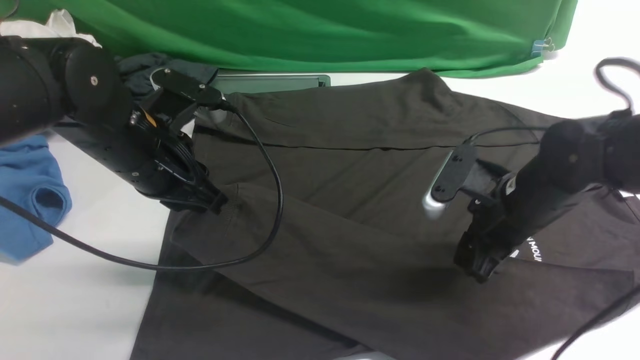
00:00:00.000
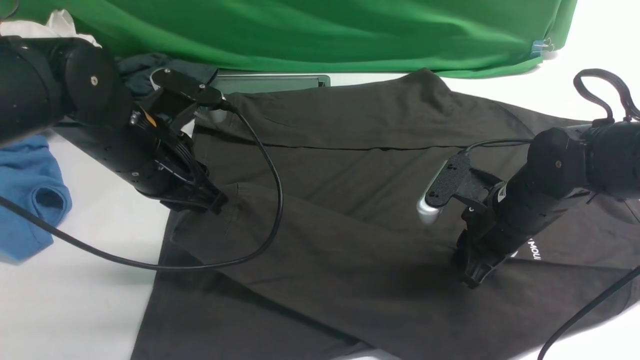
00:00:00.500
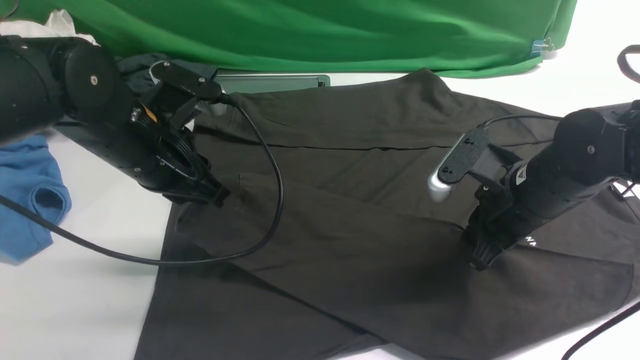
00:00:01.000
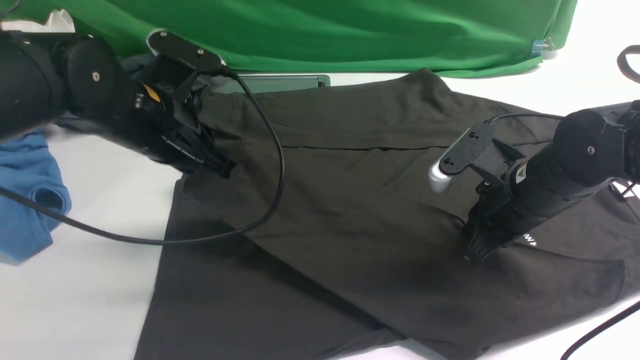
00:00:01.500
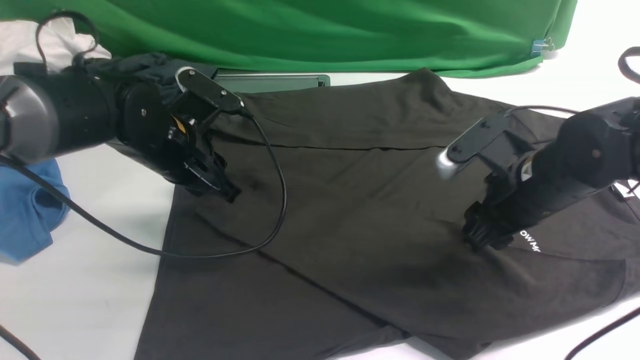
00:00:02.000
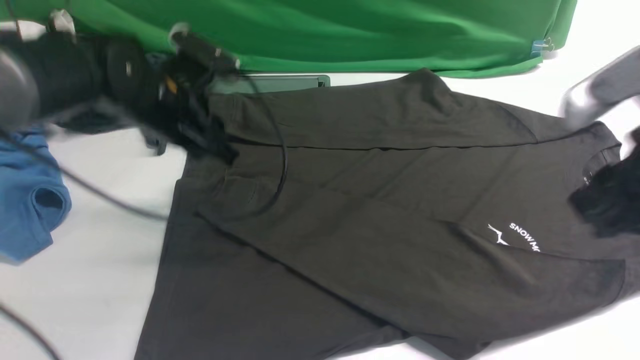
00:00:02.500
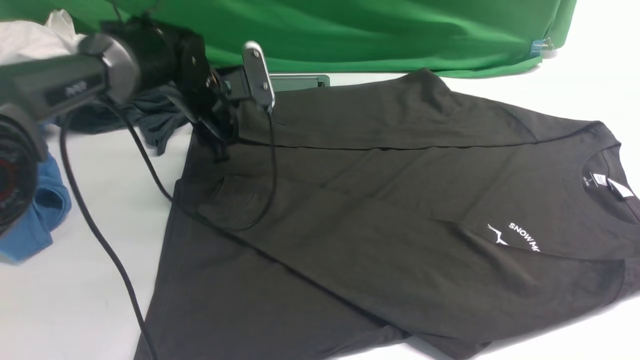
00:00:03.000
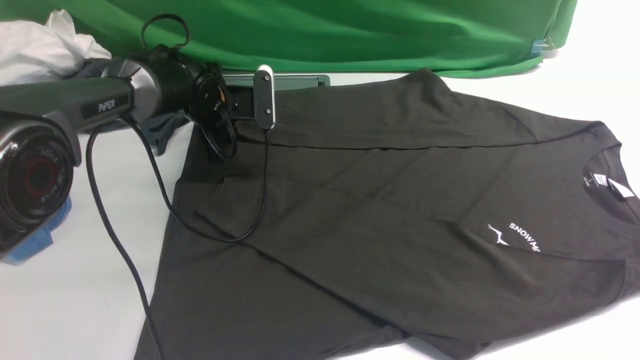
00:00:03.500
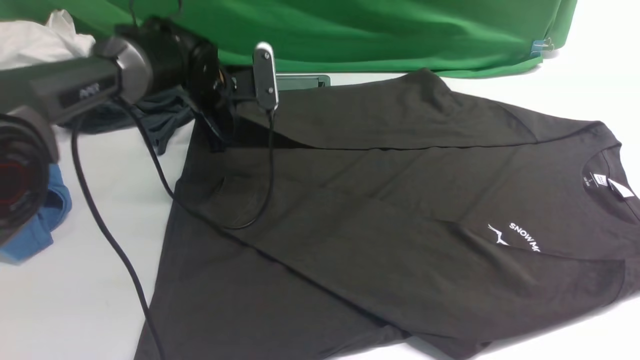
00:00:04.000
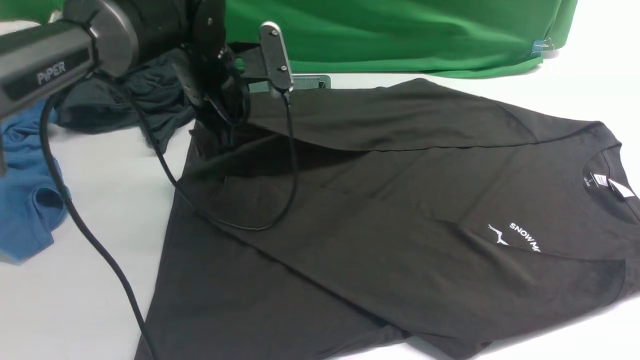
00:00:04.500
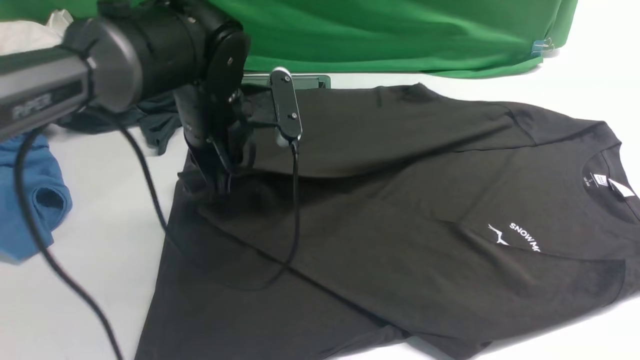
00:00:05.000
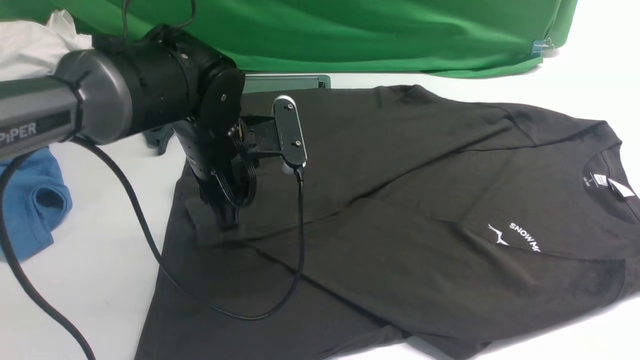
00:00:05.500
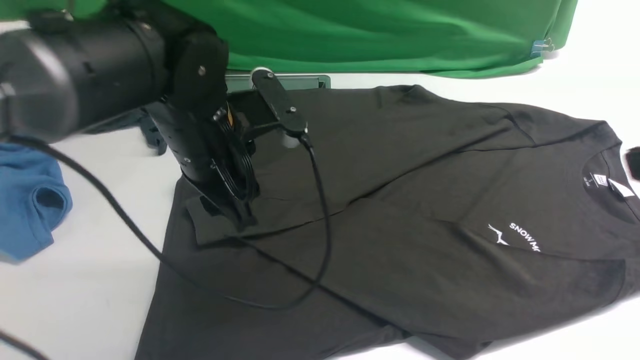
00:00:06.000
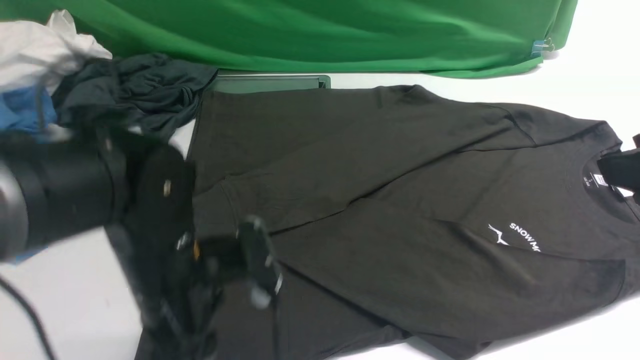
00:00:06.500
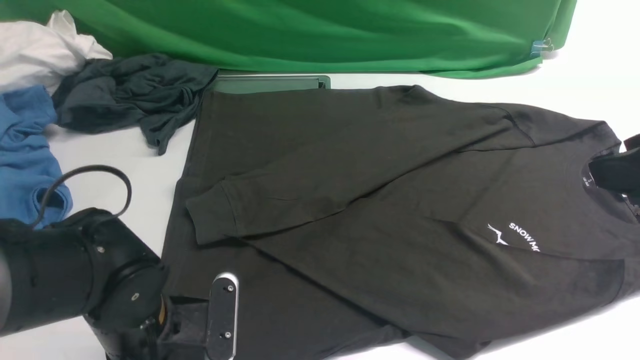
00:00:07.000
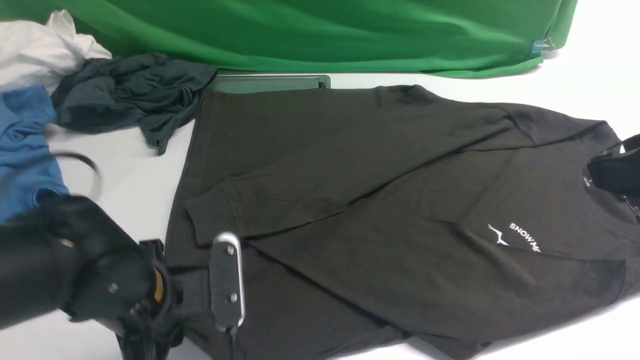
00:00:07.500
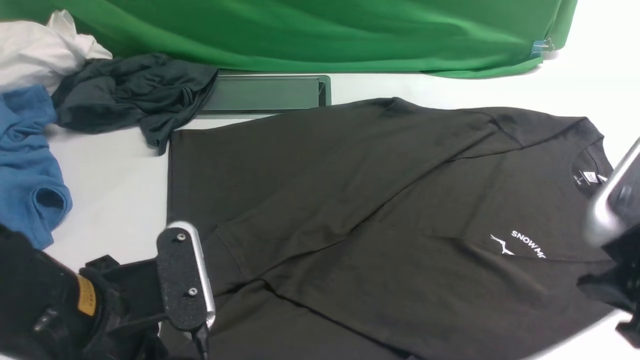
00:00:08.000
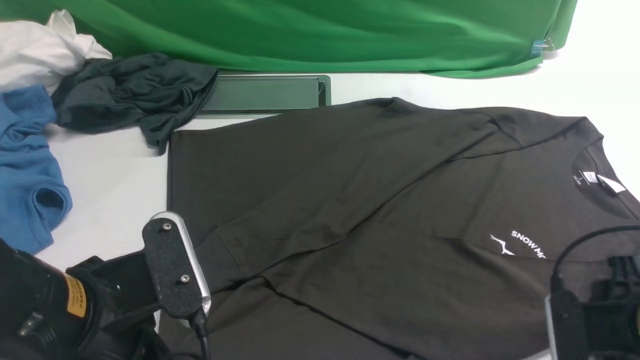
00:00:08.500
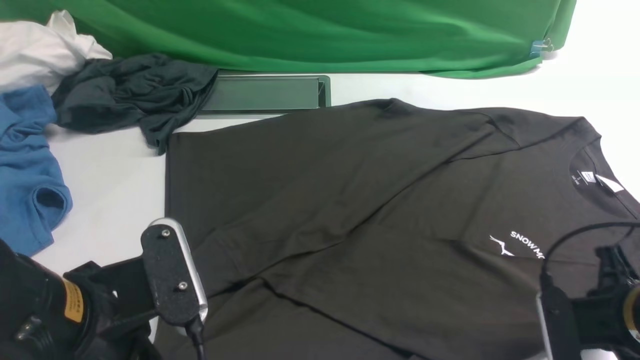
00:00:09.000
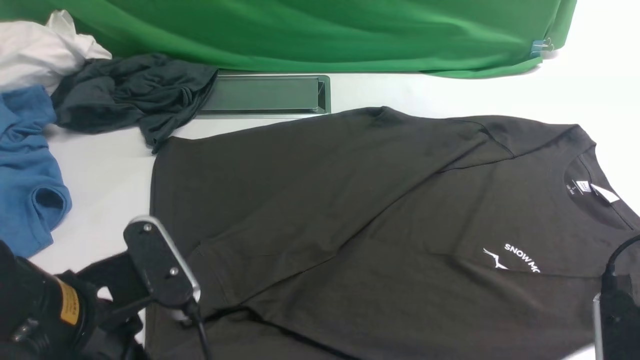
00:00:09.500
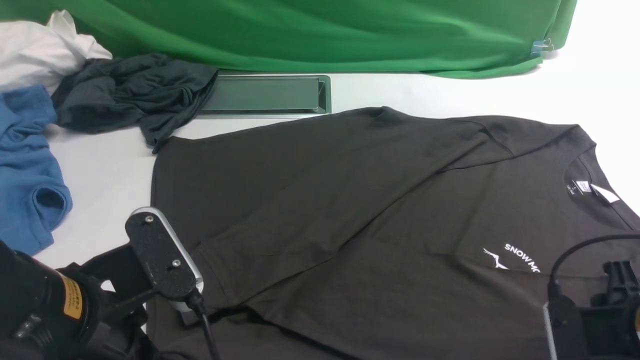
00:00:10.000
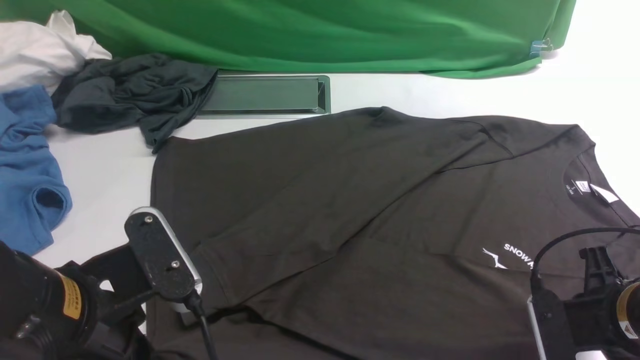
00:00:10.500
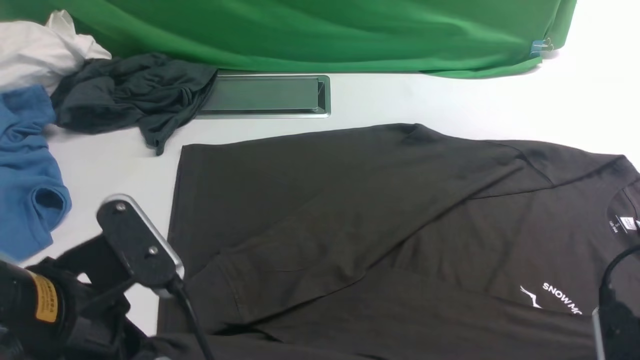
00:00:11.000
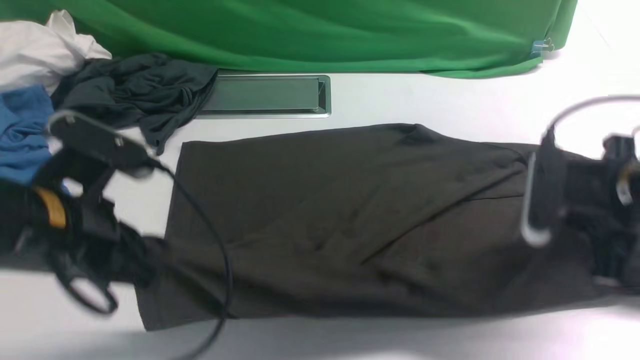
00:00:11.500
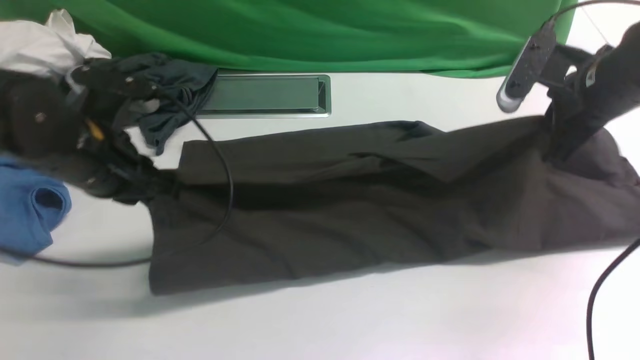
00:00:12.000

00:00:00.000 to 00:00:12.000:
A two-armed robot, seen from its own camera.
Step, 00:00:00.000 to 00:00:02.500: use the left arm to drag and place the cuff at the centered position on the left edge of the fabric.
Step, 00:00:03.000 to 00:00:04.000: use the left arm to clamp the cuff farthest from it.
Step, 00:00:04.500 to 00:00:05.500: use the left arm to drag and drop the cuff onto the cuff closest to the left arm.
Step, 00:00:06.000 to 00:00:11.000: use both arms simultaneously to clamp the lower edge of the clothing fabric.
00:00:00.000 to 00:00:02.000: The right gripper closes and opens again; the left gripper changes place by approximately 5 cm, and opens.
00:00:02.000 to 00:00:04.000: The right gripper travels upward and backward by some 25 cm. Meanwhile the left gripper shifts approximately 10 cm forward, and closes up.
00:00:04.000 to 00:00:06.000: The left gripper is displaced backward by approximately 15 cm, and opens.
00:00:06.000 to 00:00:08.000: The right gripper moves downward, roughly 10 cm, while the left gripper goes some 15 cm backward, and closes its fingers.
00:00:08.000 to 00:00:10.000: The right gripper travels downward by about 10 cm, and closes, then opens again.
00:00:10.000 to 00:00:12.000: The right gripper travels forward and upward by roughly 20 cm, and closes up, while the left gripper shifts about 15 cm forward.

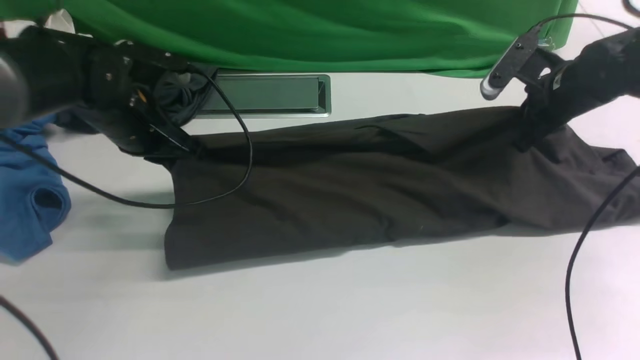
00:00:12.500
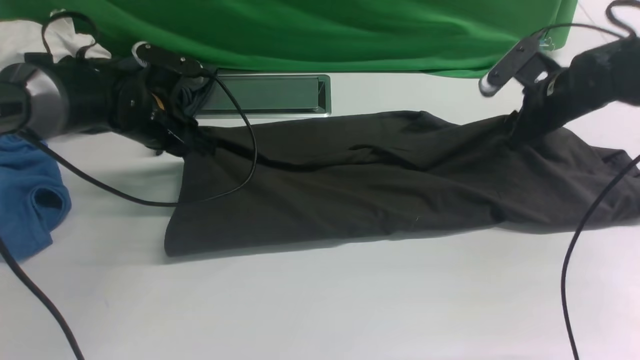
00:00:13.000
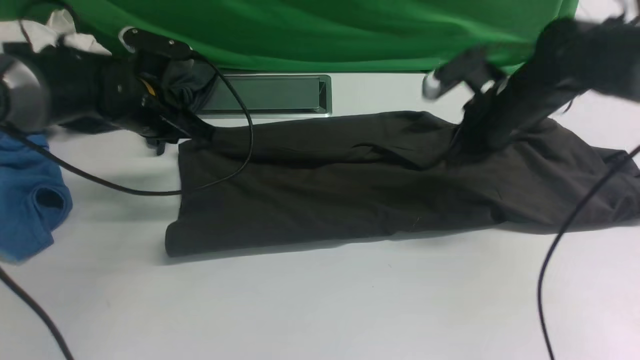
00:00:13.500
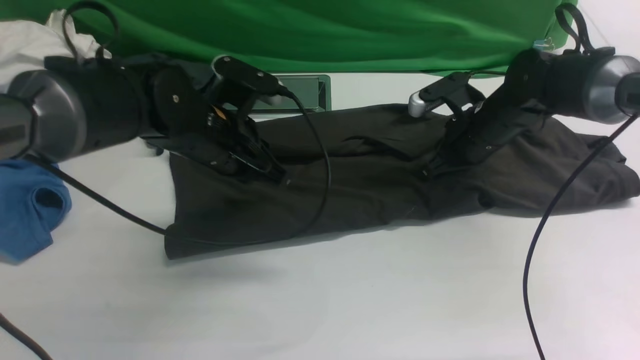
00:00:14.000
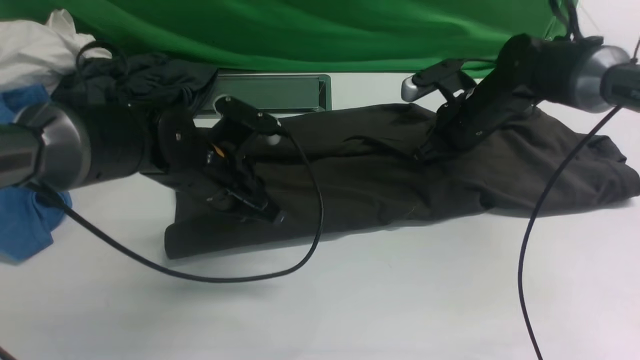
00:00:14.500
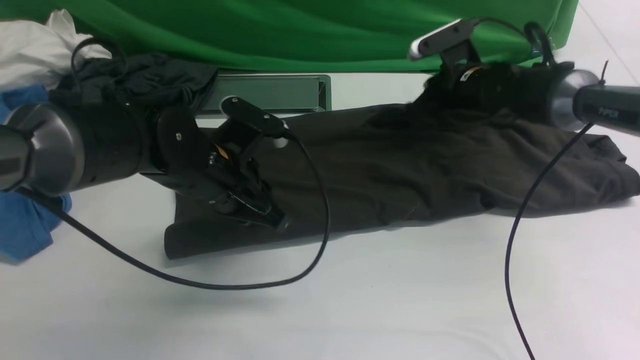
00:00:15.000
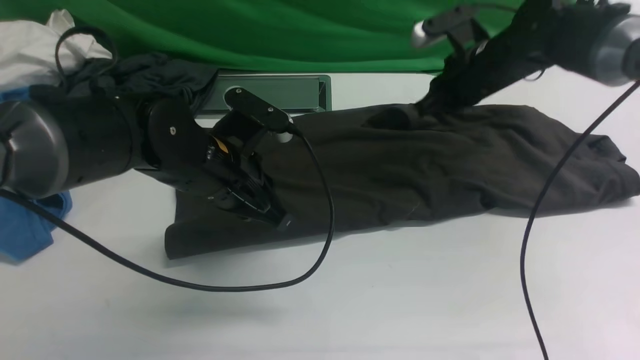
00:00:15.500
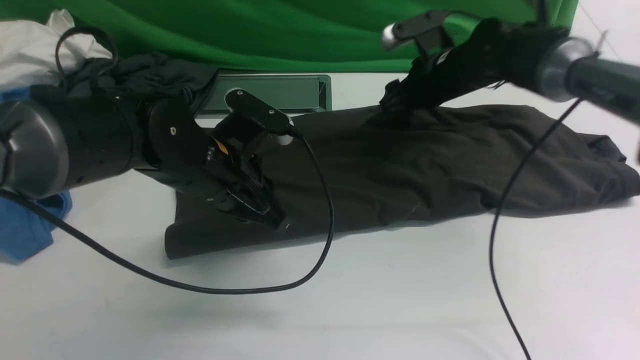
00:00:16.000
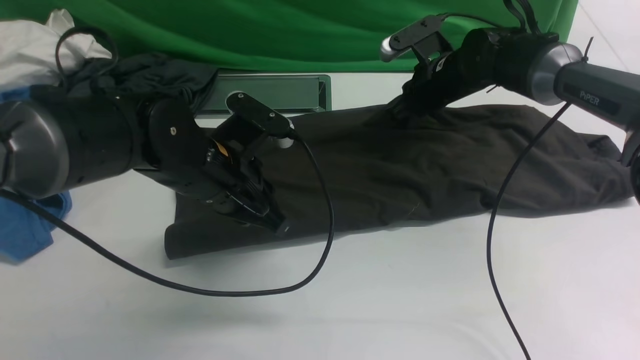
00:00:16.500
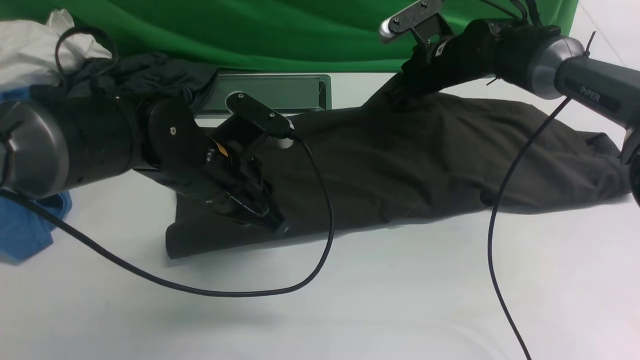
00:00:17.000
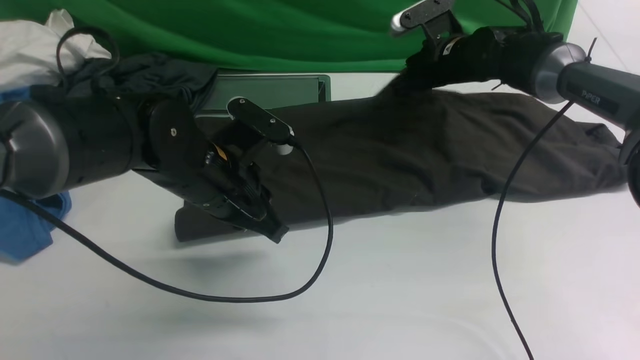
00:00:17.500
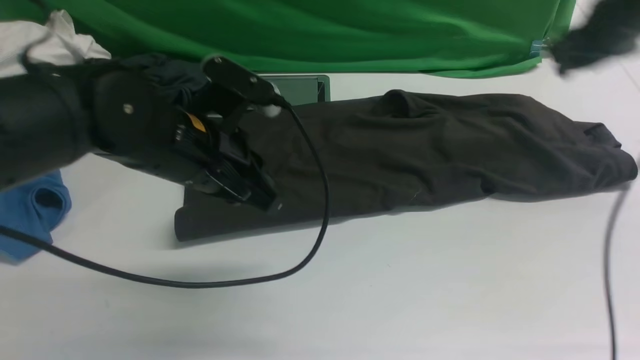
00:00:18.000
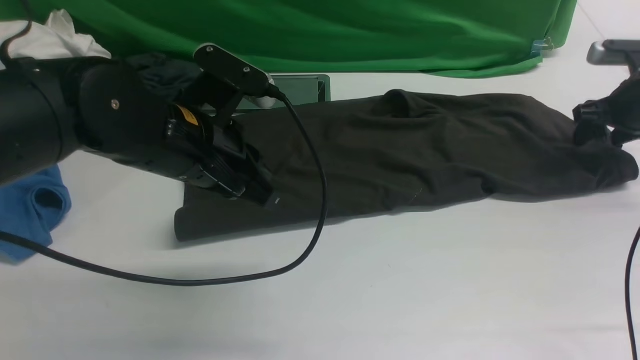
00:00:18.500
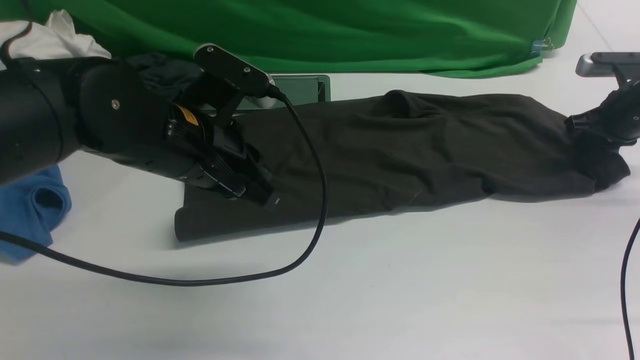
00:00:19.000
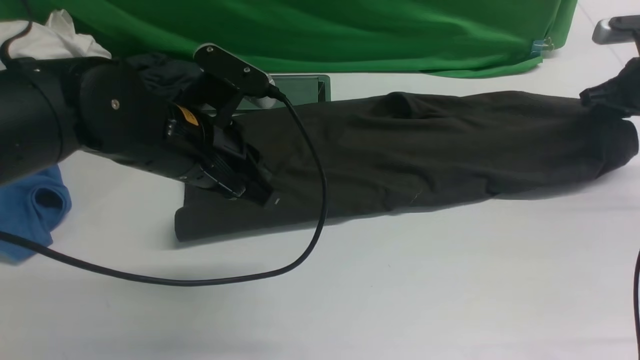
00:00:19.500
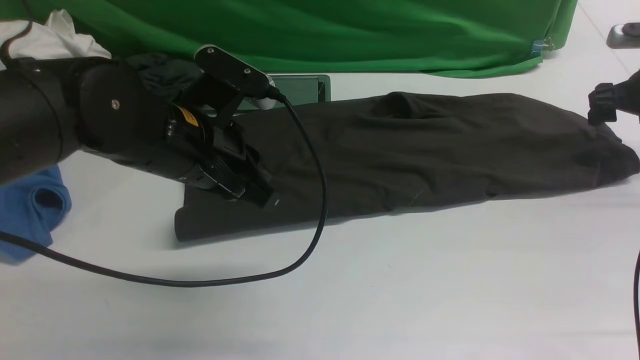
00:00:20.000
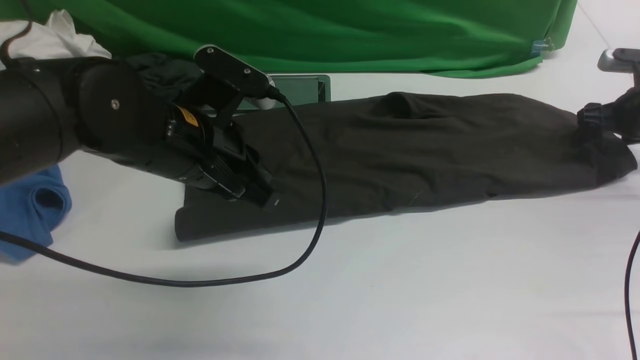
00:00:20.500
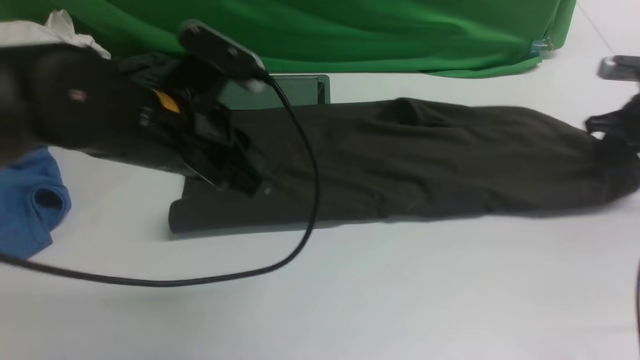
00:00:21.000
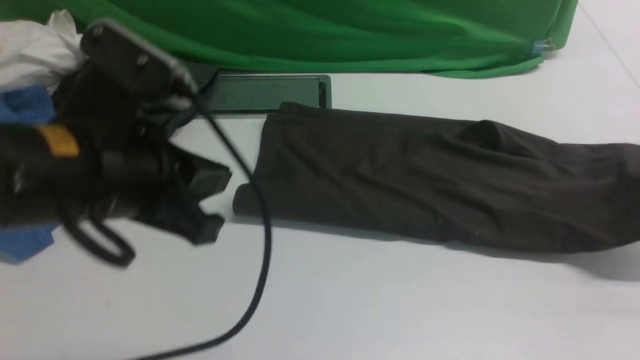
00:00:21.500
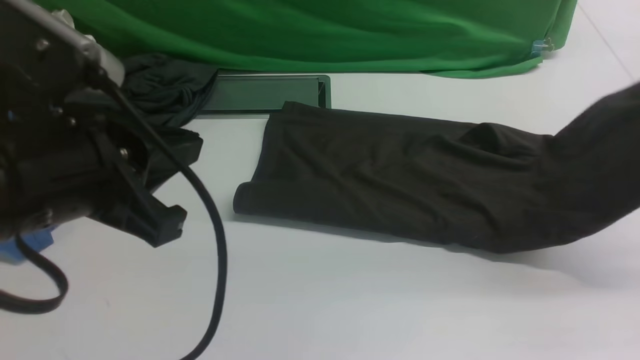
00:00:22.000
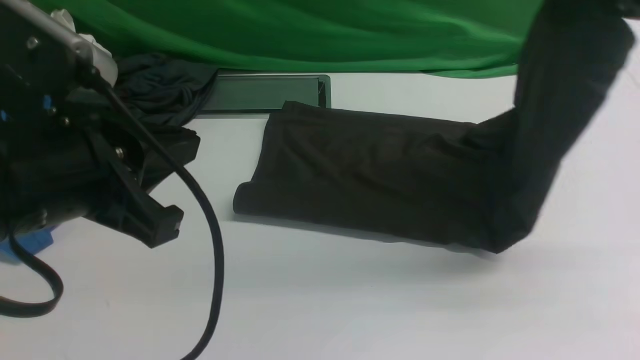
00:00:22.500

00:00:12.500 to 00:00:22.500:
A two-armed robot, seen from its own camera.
Step, 00:00:12.500 to 00:00:17.500: use both arms to drag the lower edge of the fabric forward and fold it over the upper edge.
Step, 00:00:18.000 to 00:00:21.000: use the right arm to clamp the right edge of the fabric.
00:00:12.500 to 00:00:14.500: The left gripper shifts some 10 cm to the right, and opens and closes again. Meanwhile the right gripper goes some 10 cm to the left, and opens, then closes again.
00:00:14.500 to 00:00:16.500: The right gripper moves forward, approximately 5 cm, and opens, then closes again.
00:00:16.500 to 00:00:18.500: The right gripper heads to the right, covering approximately 25 cm, and opens up, while the left gripper heads upward, covering about 5 cm.
00:00:18.500 to 00:00:20.500: The right gripper closes and opens again.
00:00:20.500 to 00:00:22.500: The right gripper travels upward, to the left and backward by approximately 30 cm, and closes up, while the left gripper heads backward and upward, covering roughly 15 cm.
